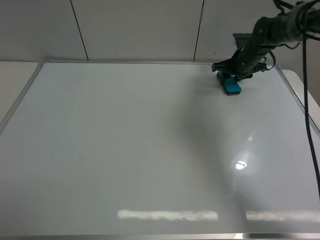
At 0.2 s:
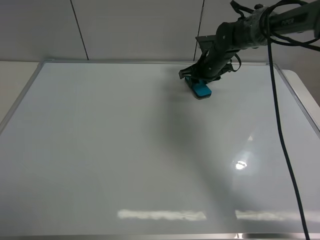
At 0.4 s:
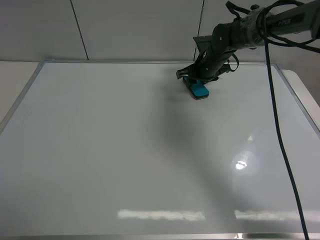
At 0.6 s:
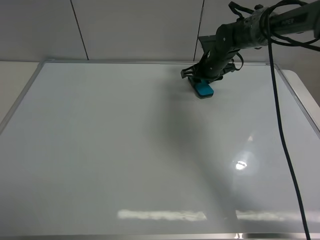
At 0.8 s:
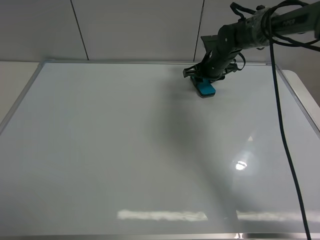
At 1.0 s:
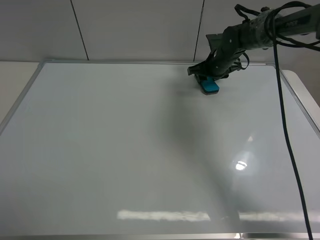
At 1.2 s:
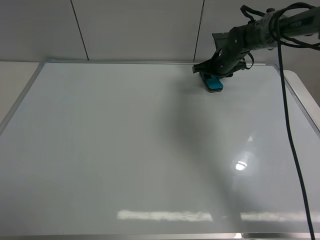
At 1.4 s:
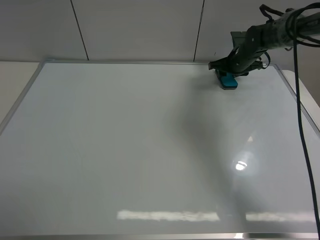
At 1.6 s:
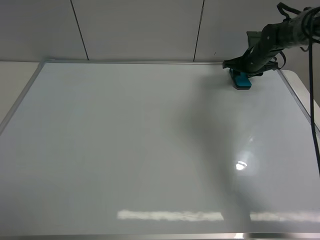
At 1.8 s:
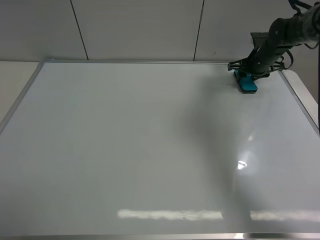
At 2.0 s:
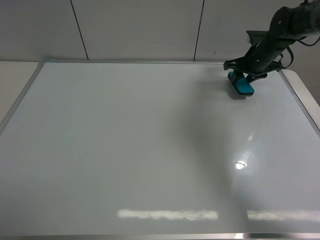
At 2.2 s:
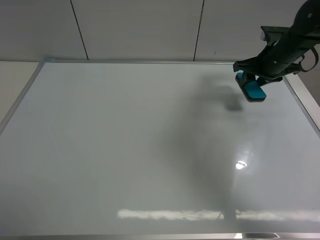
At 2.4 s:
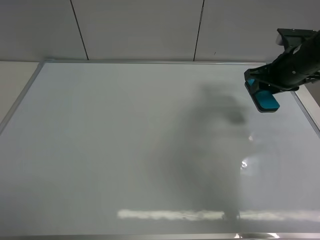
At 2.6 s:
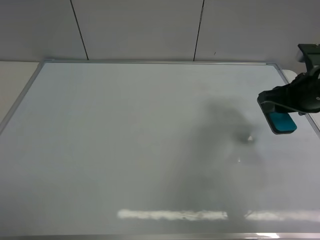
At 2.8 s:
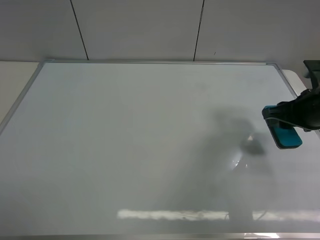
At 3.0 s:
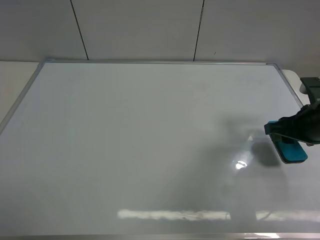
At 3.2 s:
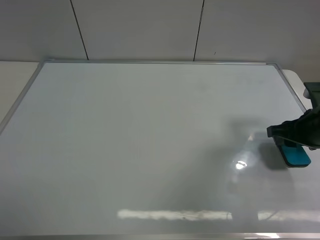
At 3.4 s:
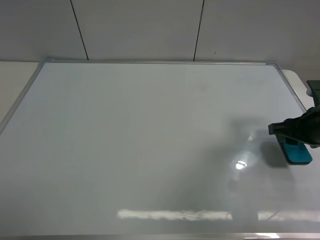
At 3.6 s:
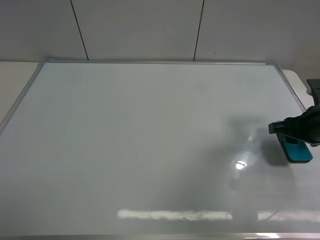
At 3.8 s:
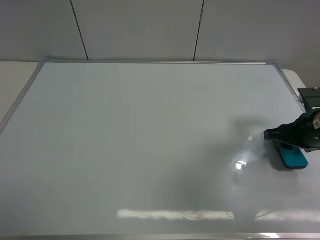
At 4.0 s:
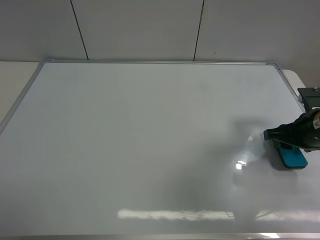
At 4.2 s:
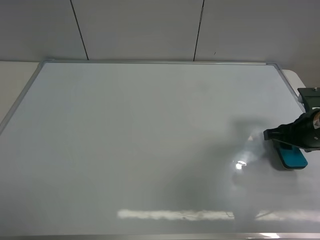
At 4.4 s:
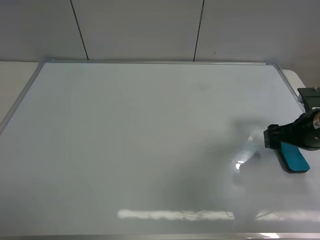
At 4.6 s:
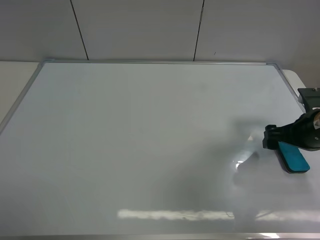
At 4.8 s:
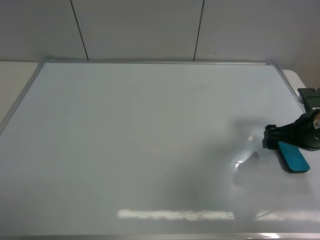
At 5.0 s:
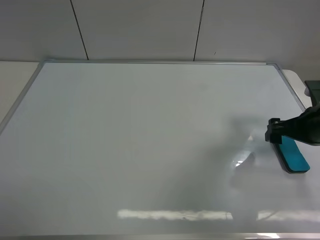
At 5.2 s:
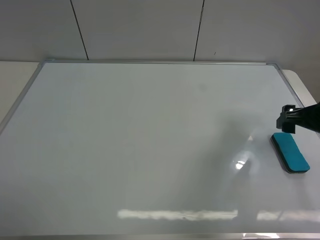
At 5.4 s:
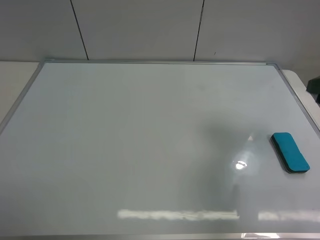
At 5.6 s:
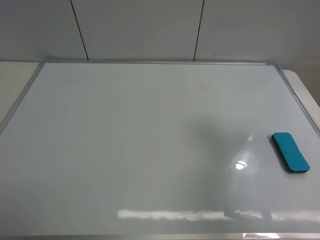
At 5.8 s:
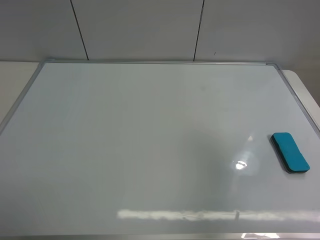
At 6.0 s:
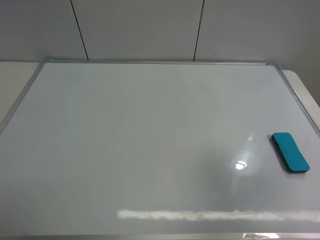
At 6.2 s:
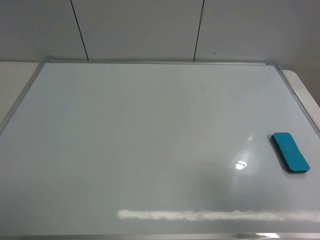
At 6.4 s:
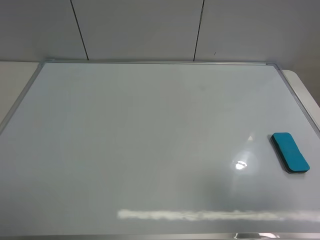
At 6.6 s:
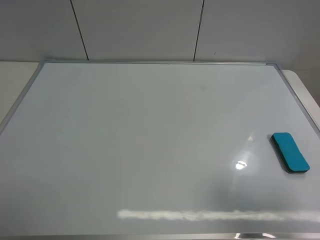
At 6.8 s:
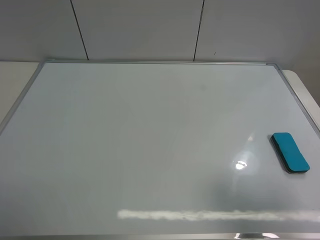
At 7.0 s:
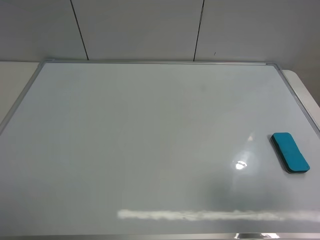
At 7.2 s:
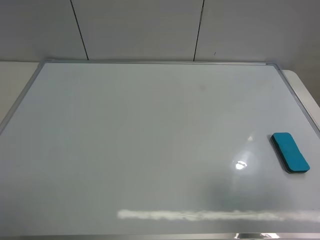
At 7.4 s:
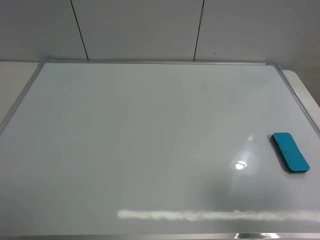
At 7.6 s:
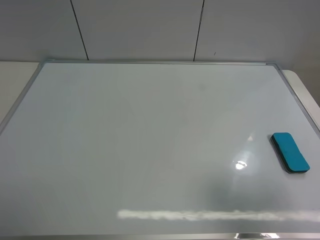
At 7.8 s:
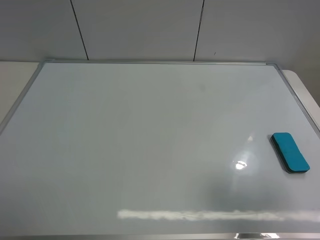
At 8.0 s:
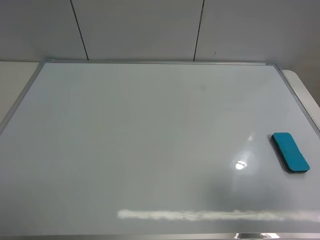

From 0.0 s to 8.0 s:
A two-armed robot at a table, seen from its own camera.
Task of the whole recording: use the left gripper to place the eraser in the right, use the right gripper to pick up the eraser, wipe the notes on the whiteboard clean, and then put it down.
Step, from 1.8 s to 4.8 s: Place the board eraser on the right side of board with right gripper.
From 0.0 s to 1.6 s: The right gripper shifts roughly 5 cm to the right.
From 1.6 s to 3.2 s: The right gripper moves backward, roughly 30 cm.
From 3.2 s to 4.8 s: The right gripper opens its fingers.
From 4.8 s to 6.4 s: The right gripper moves backward and upward, approximately 30 cm.
